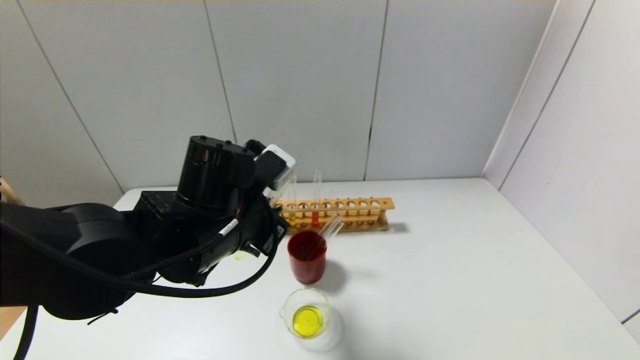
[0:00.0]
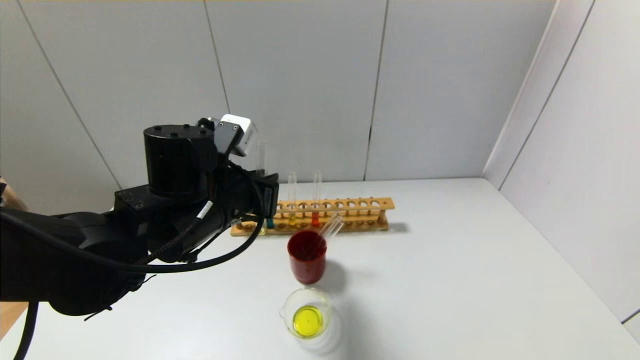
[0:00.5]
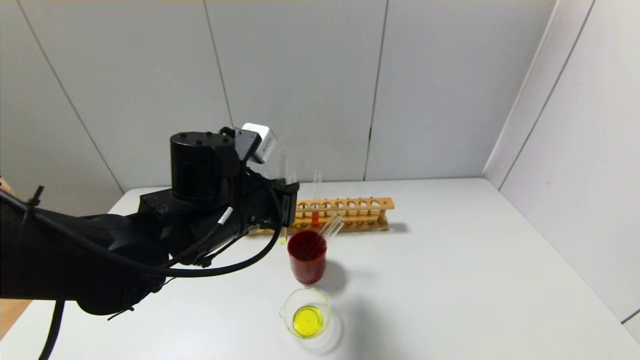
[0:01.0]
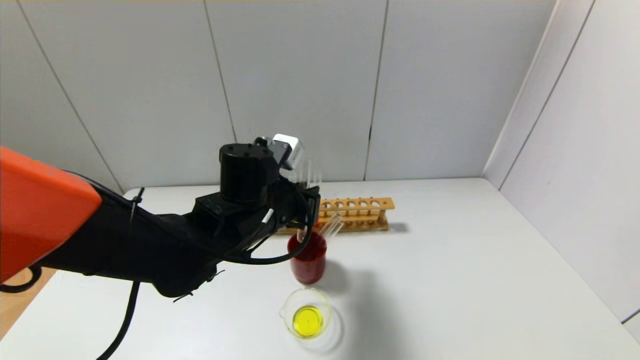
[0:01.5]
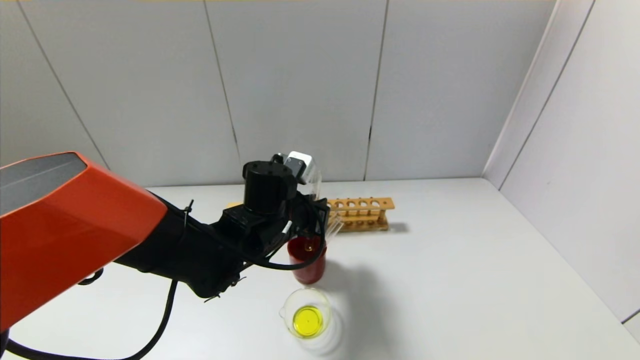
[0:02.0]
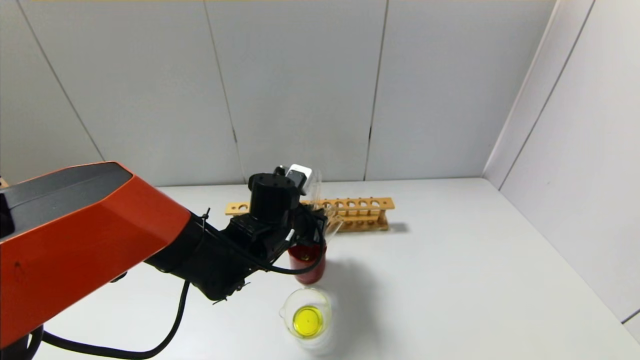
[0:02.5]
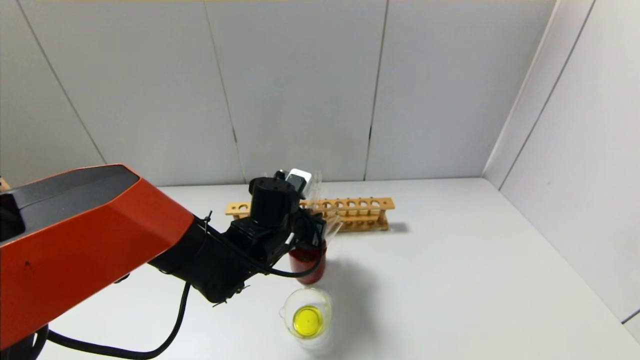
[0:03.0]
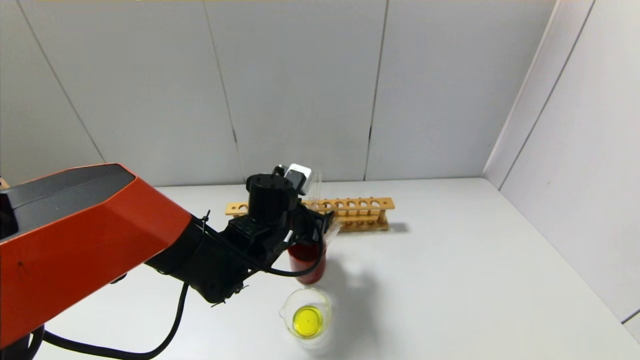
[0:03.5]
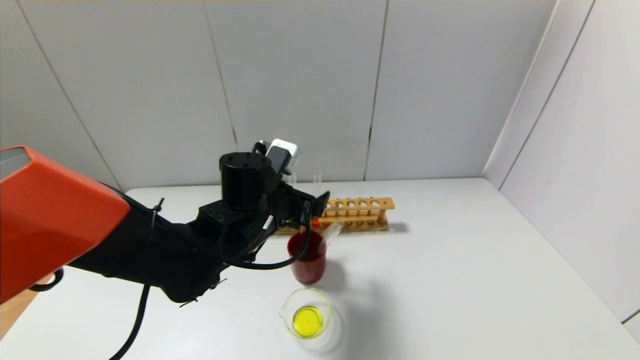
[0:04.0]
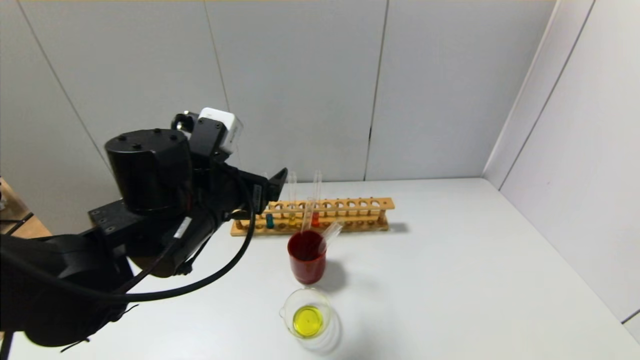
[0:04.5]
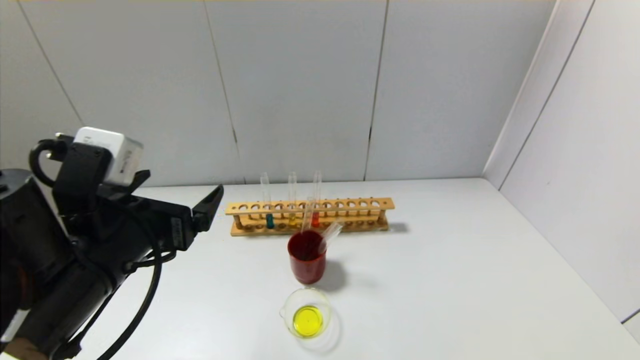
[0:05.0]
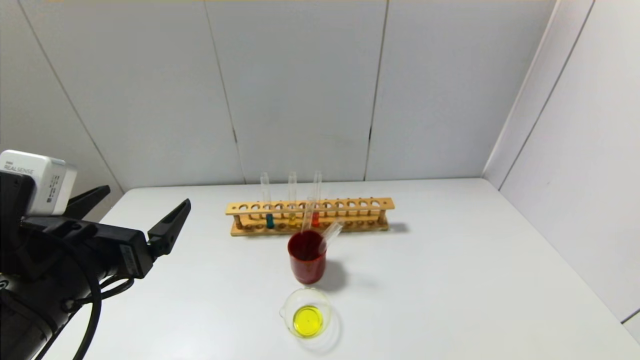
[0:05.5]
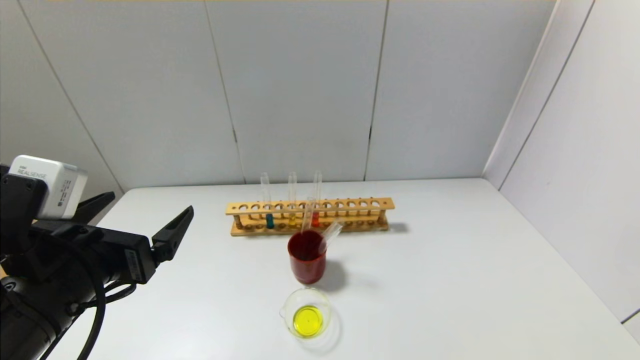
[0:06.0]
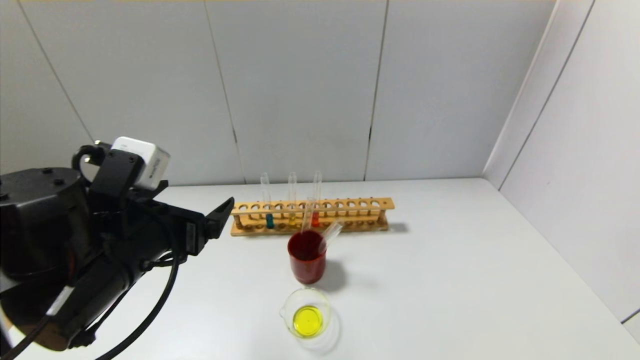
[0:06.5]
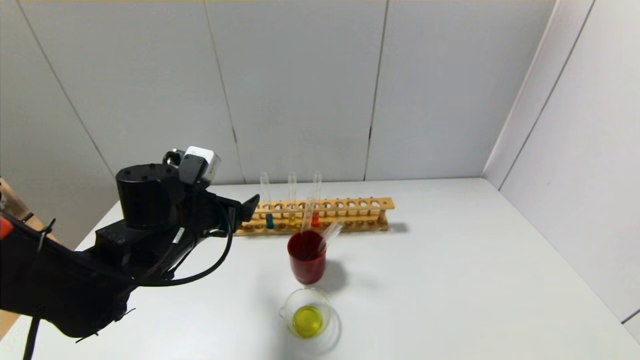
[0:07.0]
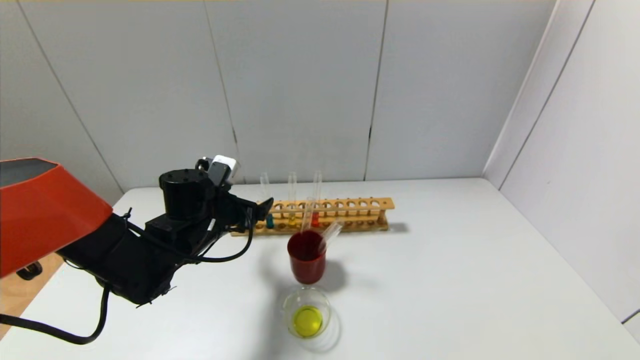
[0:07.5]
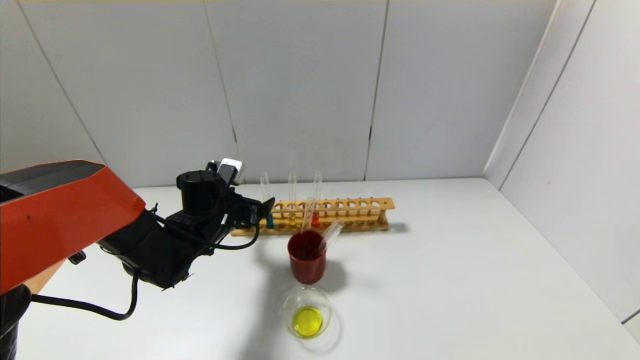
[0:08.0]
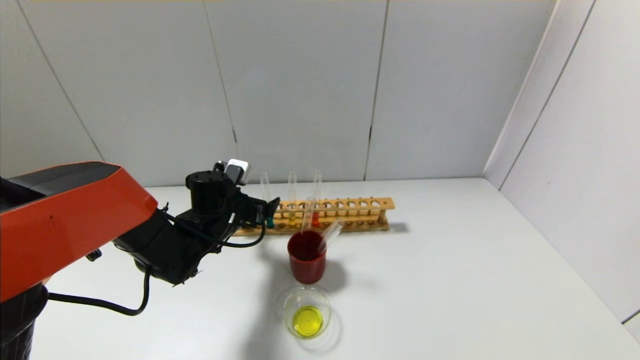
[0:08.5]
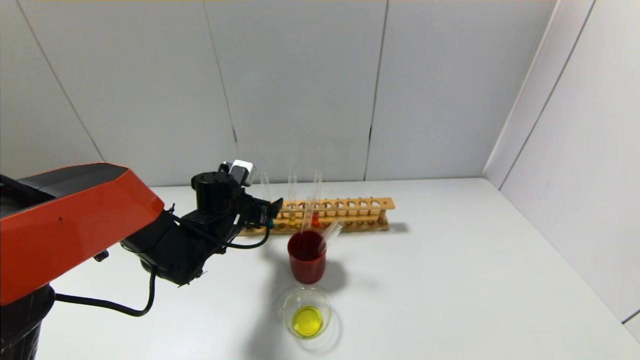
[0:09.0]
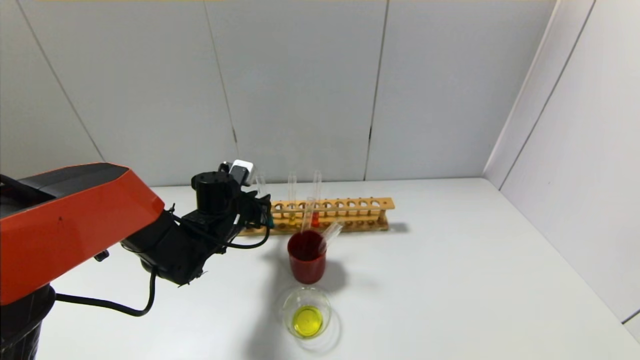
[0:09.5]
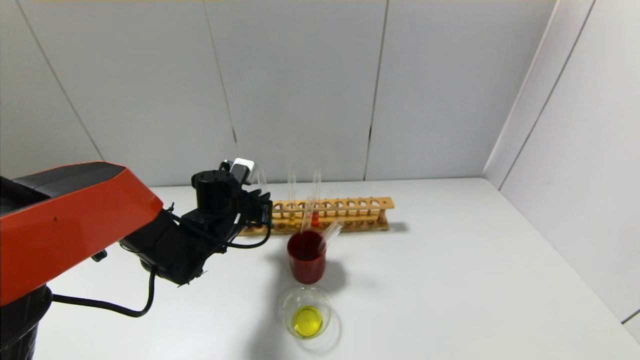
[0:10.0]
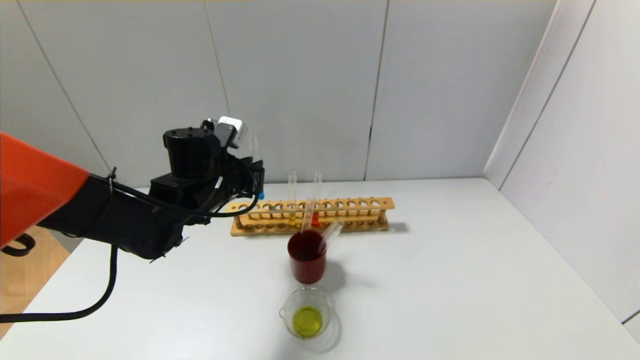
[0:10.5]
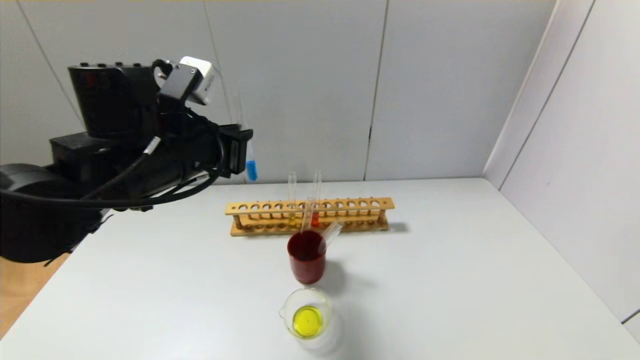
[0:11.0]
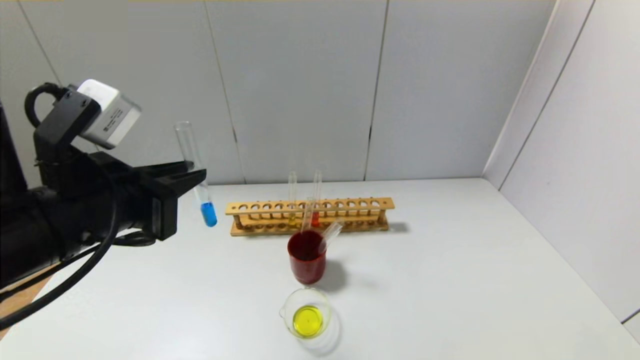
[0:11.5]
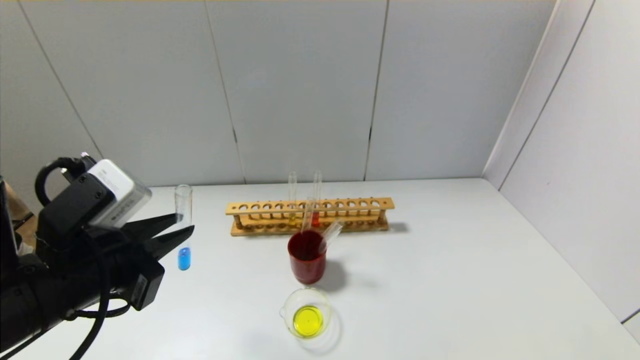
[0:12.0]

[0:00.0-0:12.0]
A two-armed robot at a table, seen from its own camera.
Step, 0.0 to 3.5 s: Place the test tube into the brown cup with the left gripper.
Step, 4.0 to 9.5 s: Grasp the blue reagent with the left gripper.
0.0 to 2.0 s: The left gripper travels forward and downward by some 10 cm.
2.0 to 4.0 s: The left gripper opens.
4.0 to 6.0 s: The left gripper moves backward and to the left, some 20 cm.
6.0 to 8.0 s: The left gripper is displaced forward and downward by some 25 cm.
8.0 to 10.0 s: The left gripper closes its fingers.
10.0 to 12.0 s: The left gripper goes some 25 cm backward and upward.

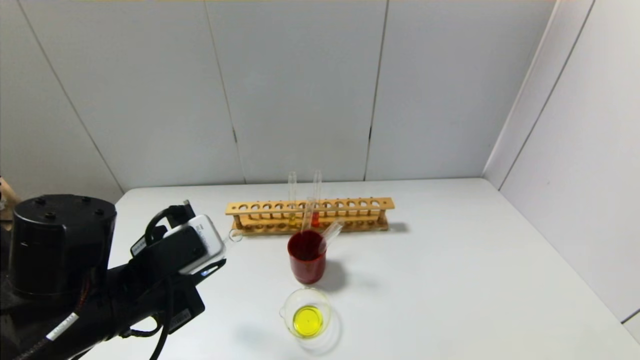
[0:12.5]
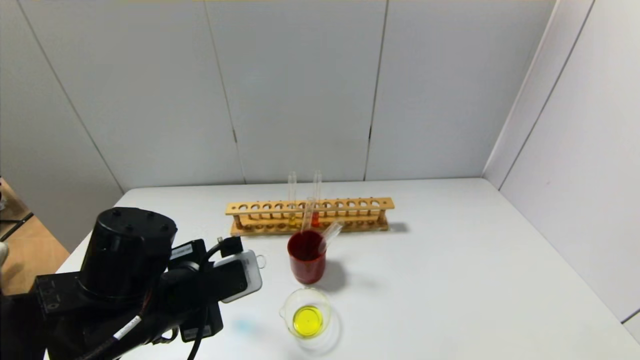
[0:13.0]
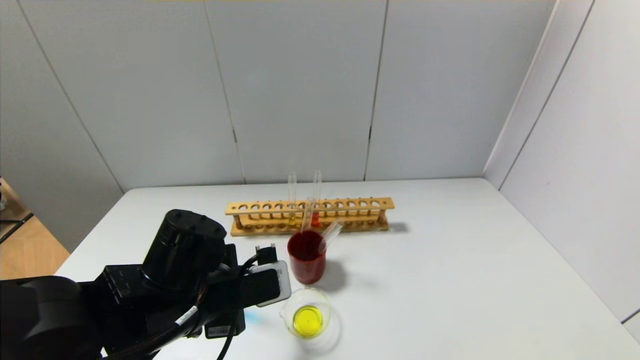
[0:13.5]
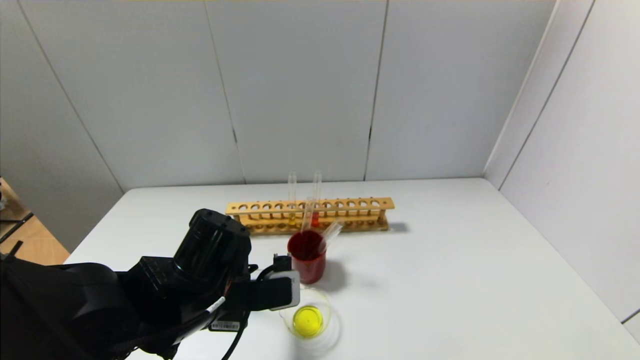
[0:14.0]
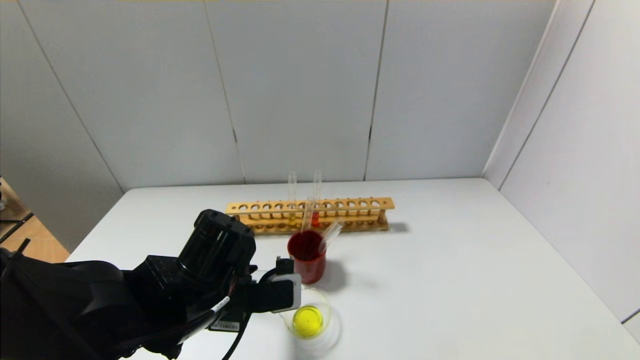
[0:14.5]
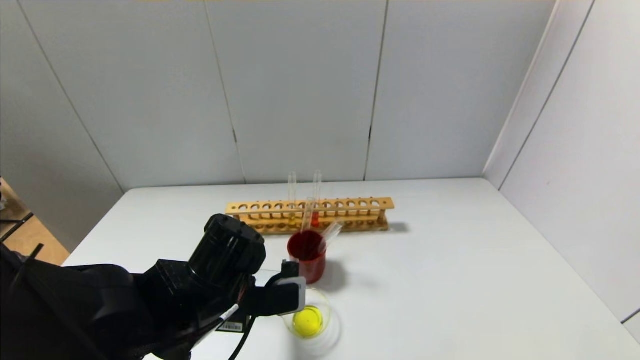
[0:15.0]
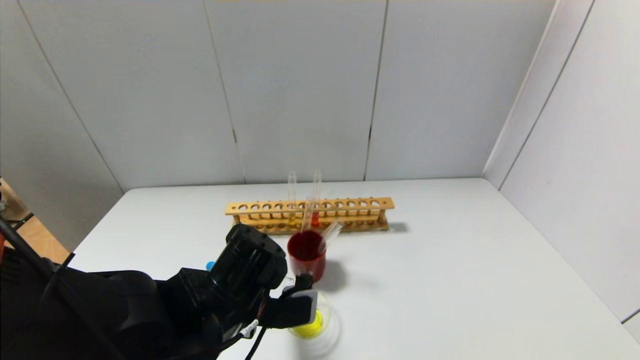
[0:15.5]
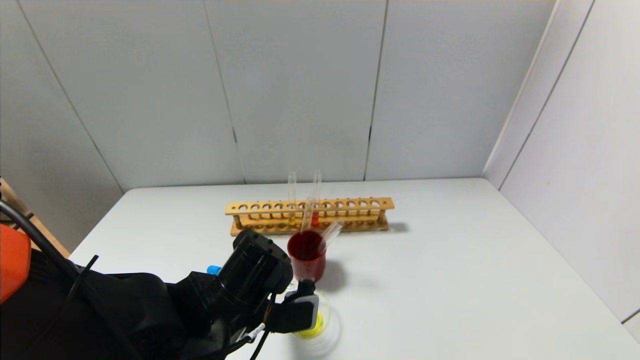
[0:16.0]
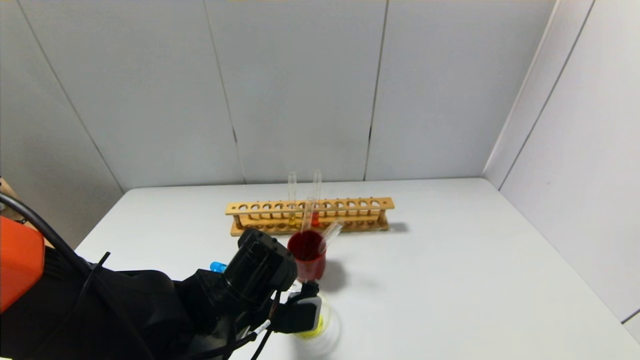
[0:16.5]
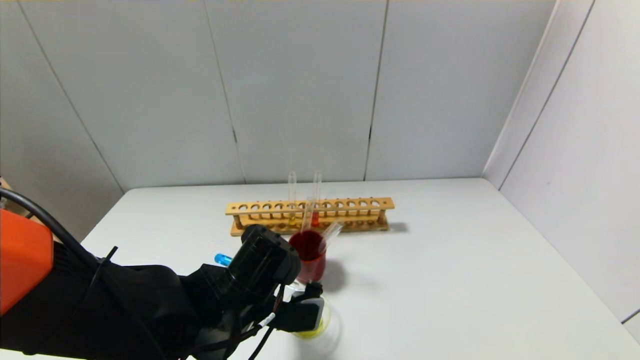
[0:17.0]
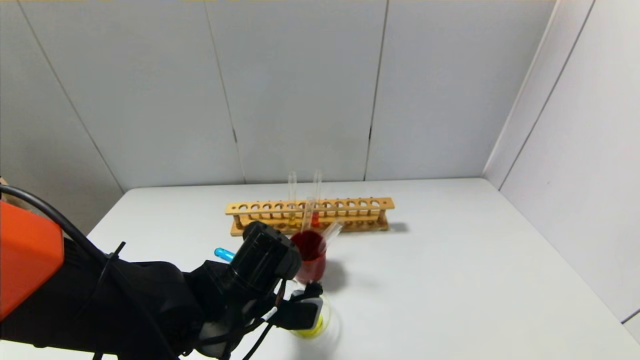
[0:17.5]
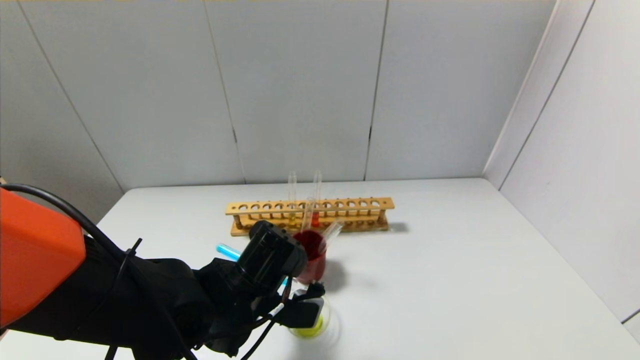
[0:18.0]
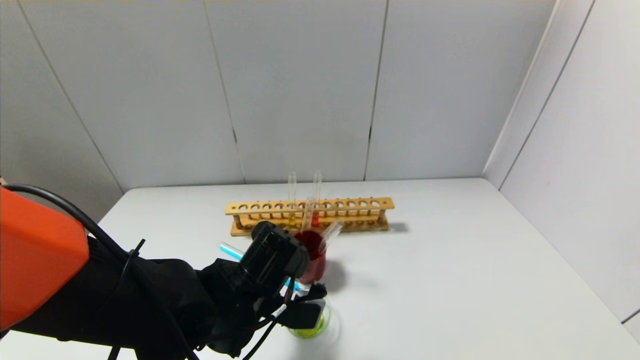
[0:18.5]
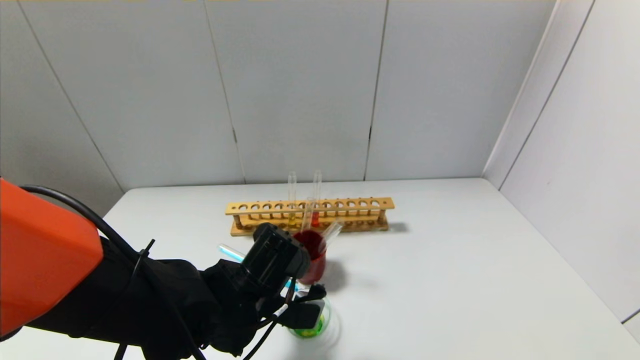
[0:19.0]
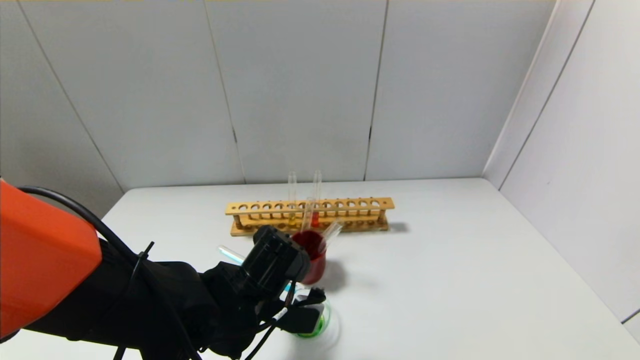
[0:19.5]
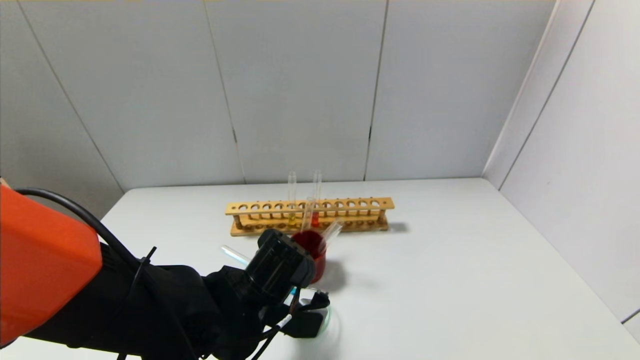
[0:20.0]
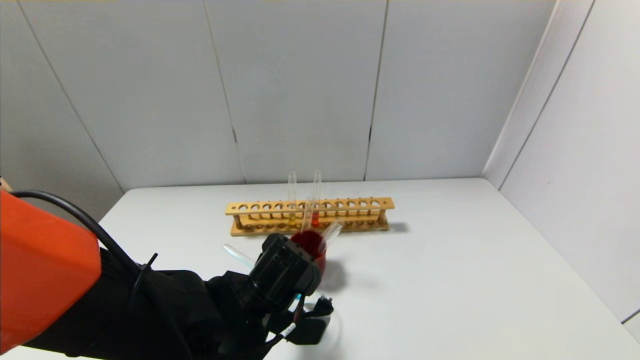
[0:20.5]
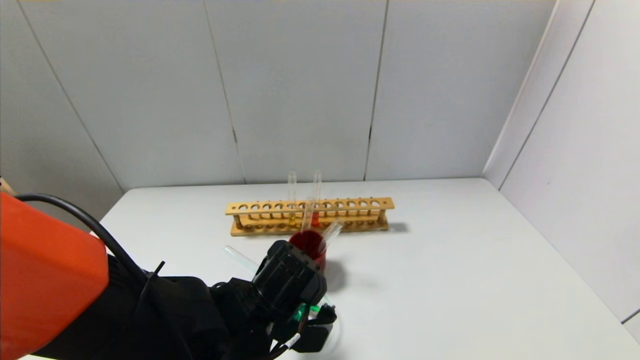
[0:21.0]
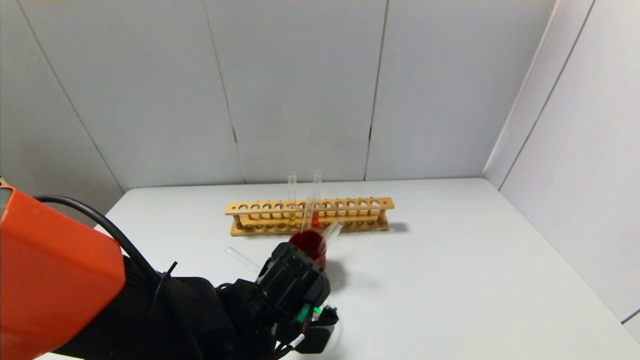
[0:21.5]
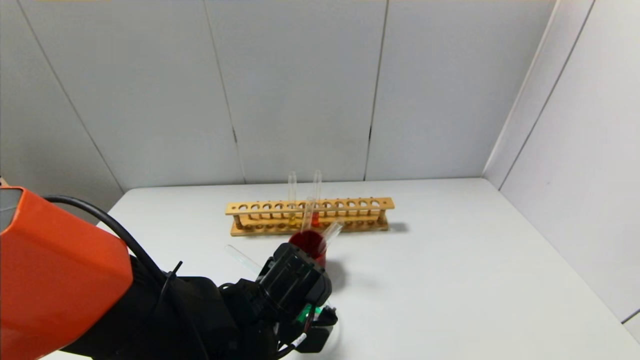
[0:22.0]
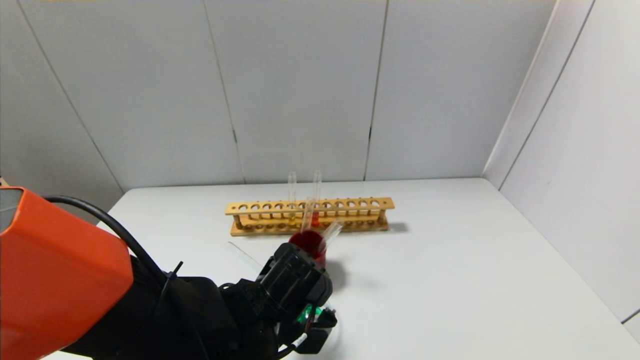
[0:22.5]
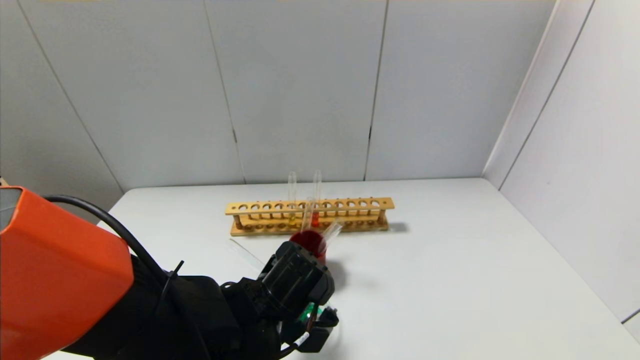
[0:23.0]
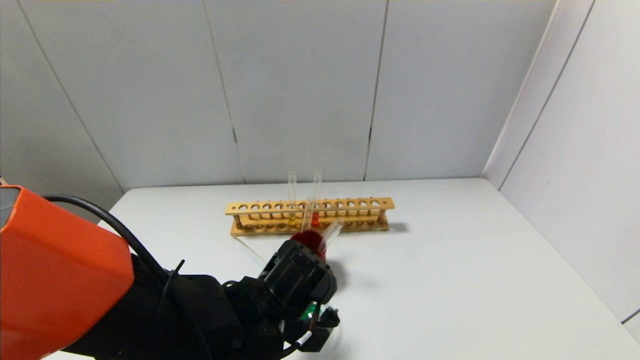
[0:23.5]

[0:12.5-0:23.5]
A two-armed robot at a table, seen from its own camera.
12.5 to 14.5 s: The left gripper travels to the right and downward by about 10 cm.
14.5 to 16.0 s: The grippers stay close to where they were, moving slightly.
16.0 to 18.0 s: The grippers stay close to where they were, moving slightly.
18.0 to 20.0 s: Both grippers stay about where they are.
20.0 to 23.5 s: There are only small adjustments of the grippers.
